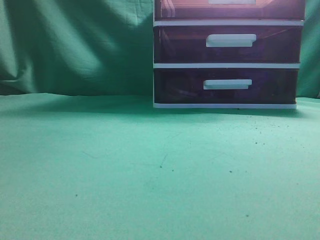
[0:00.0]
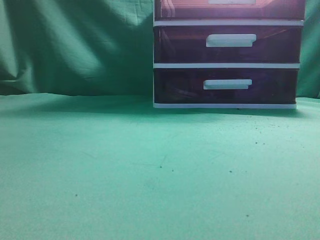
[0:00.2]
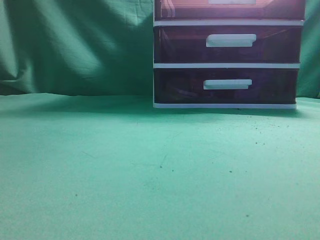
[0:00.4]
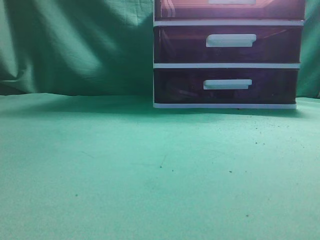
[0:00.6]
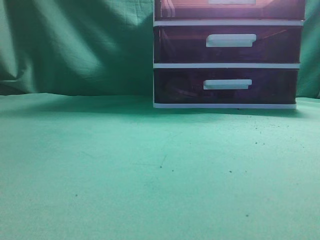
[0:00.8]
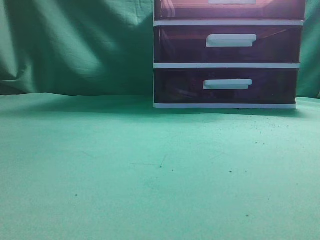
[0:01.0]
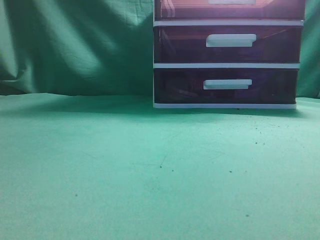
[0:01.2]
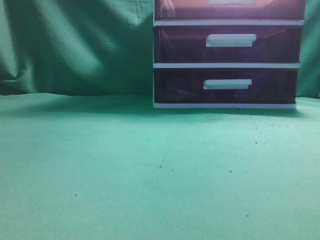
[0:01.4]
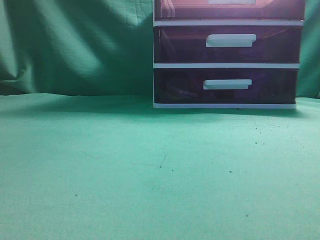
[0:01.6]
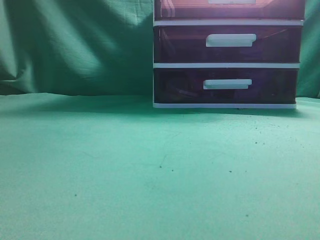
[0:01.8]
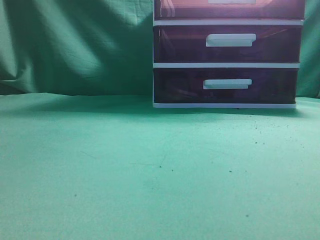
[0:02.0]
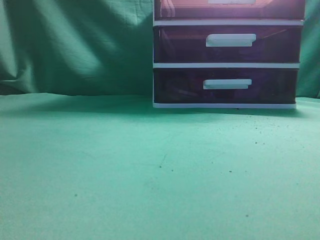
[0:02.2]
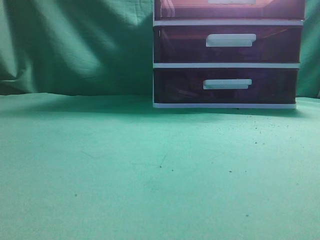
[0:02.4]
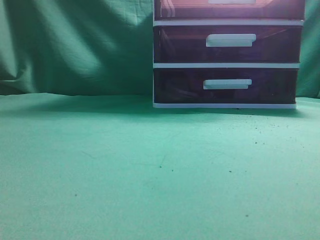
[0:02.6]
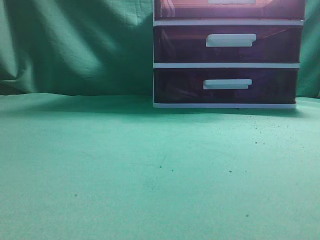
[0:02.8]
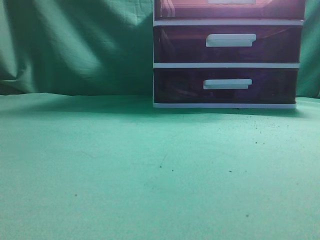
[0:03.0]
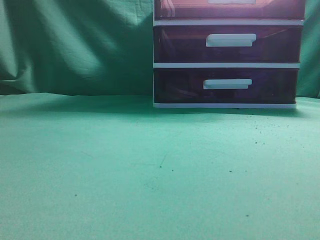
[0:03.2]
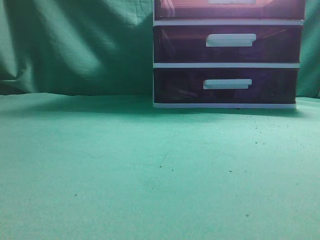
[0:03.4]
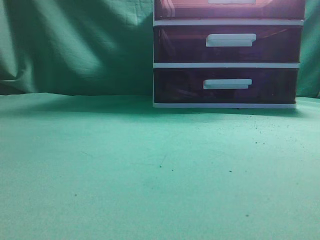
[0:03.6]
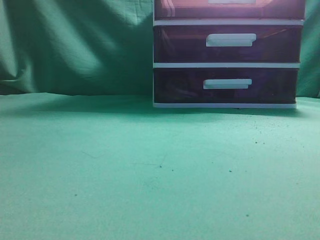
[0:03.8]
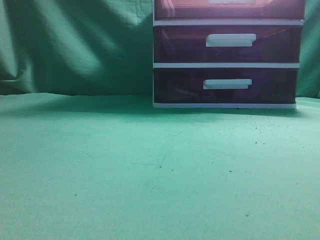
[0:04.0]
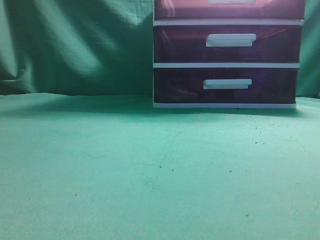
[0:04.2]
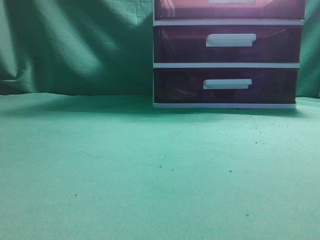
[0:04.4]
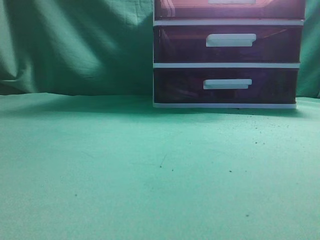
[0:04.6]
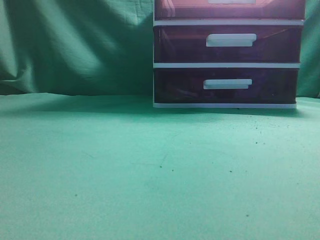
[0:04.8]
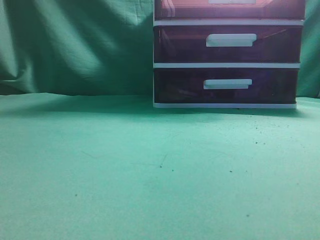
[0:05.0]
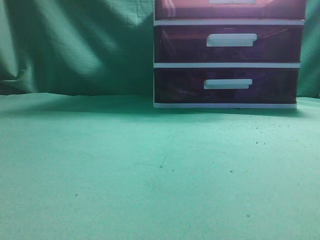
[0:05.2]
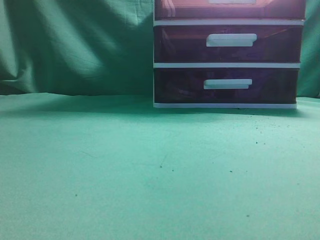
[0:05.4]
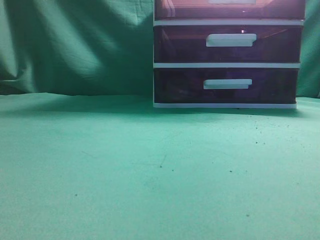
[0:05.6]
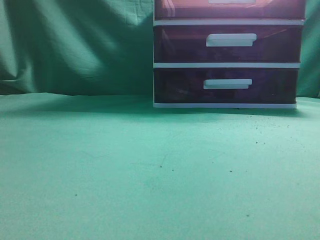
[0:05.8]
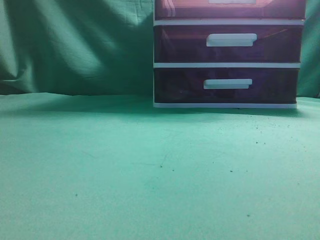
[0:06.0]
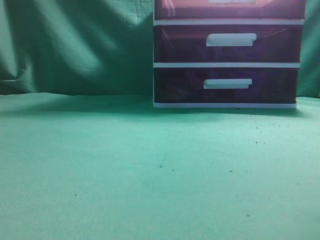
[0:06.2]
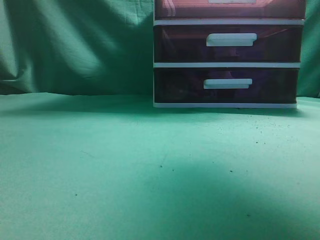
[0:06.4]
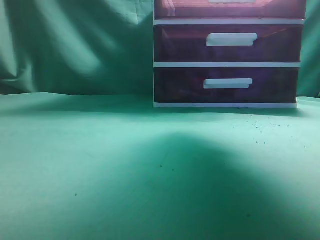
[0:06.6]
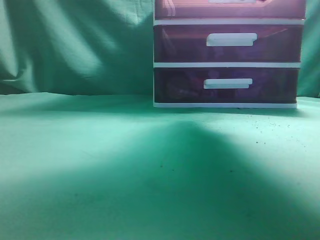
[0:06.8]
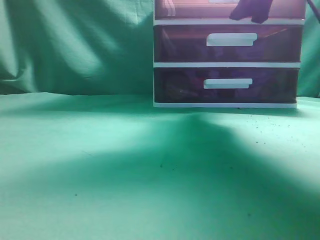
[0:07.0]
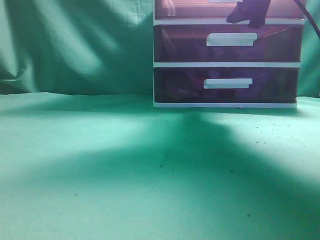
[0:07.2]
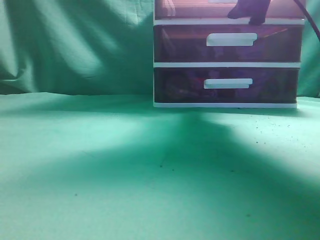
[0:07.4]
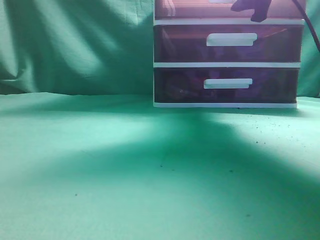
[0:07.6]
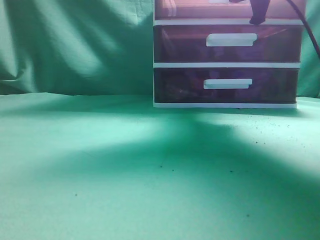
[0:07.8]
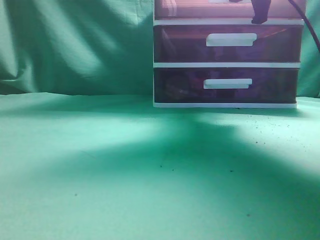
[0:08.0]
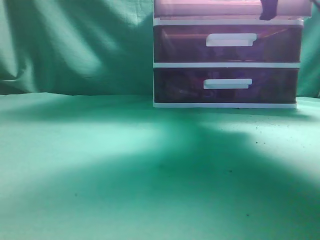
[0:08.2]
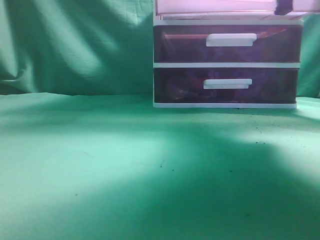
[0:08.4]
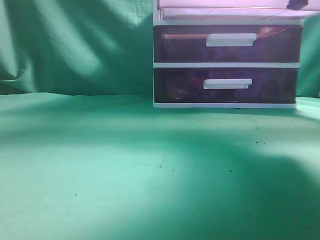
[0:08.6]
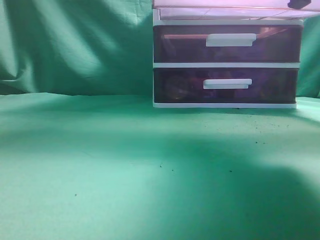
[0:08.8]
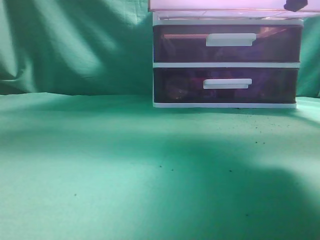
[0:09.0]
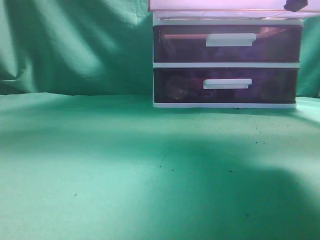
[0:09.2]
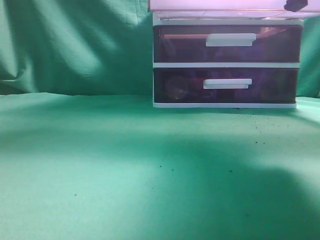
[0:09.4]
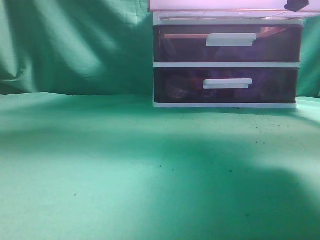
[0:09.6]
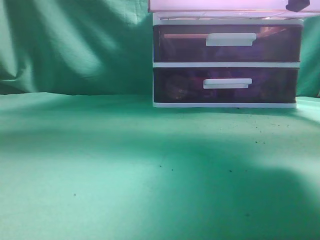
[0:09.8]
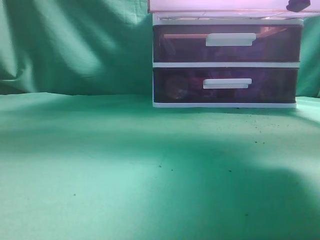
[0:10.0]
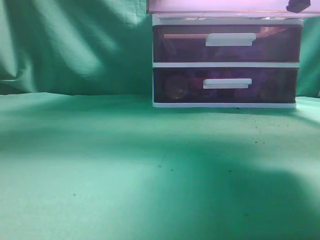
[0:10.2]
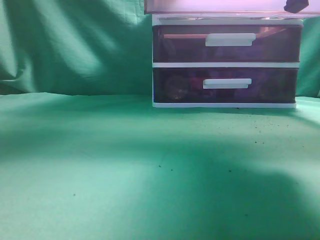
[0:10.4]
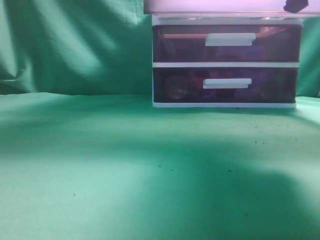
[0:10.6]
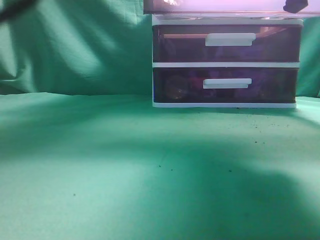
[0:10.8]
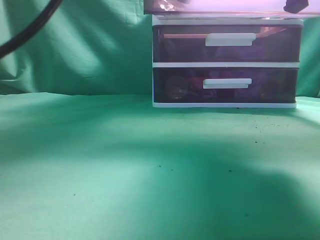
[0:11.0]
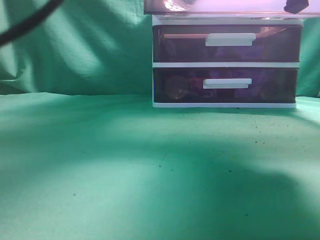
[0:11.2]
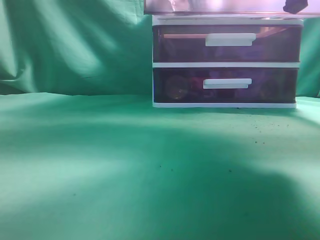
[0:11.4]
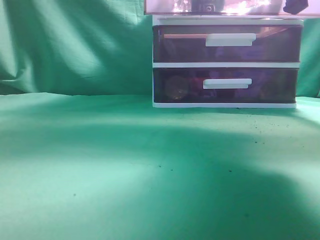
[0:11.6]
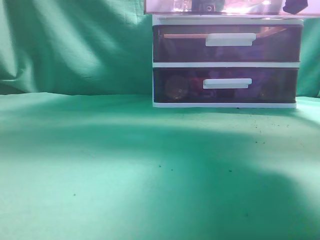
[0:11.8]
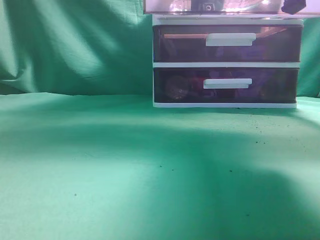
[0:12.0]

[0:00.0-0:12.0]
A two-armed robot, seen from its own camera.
Task of the whole recording: place the water bottle into the drawer.
Step, 0:00.0 to 0:08.6: Open the drawer.
Step, 0:09.0 to 0:11.8: Place the water bottle inside the drawer.
0:06.0 to 0:07.6: The left gripper goes roughly 5 cm forward, while the right gripper shifts roughly 25 cm forward, and opens its fingers.
0:07.6 to 0:09.0: The right gripper is displaced backward by about 10 cm, and closes its fingers.
0:09.0 to 0:10.4: The left gripper is displaced to the right and forward by some 30 cm.
0:10.4 to 0:12.0: The left gripper opens, then closes again.

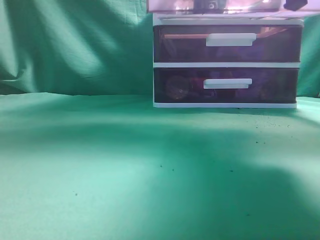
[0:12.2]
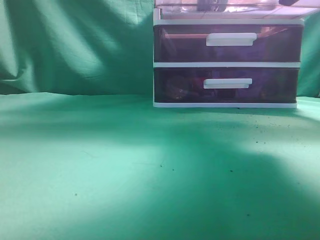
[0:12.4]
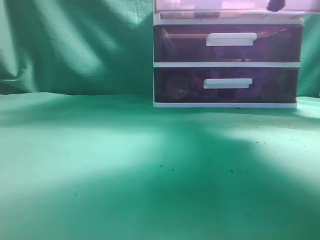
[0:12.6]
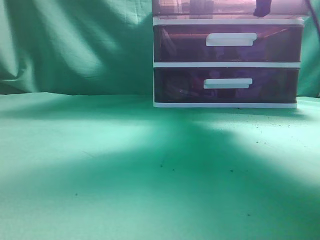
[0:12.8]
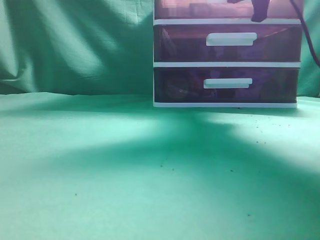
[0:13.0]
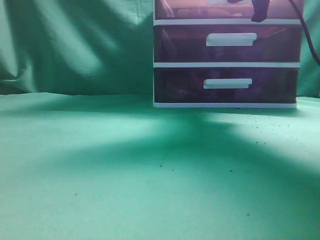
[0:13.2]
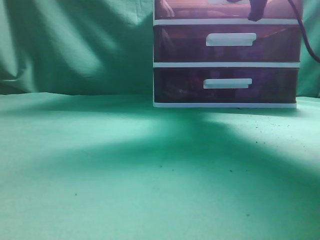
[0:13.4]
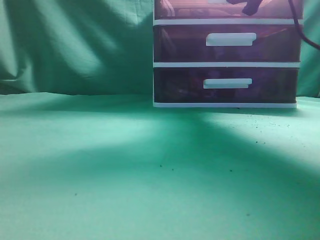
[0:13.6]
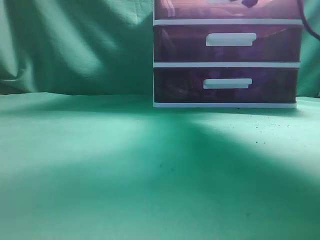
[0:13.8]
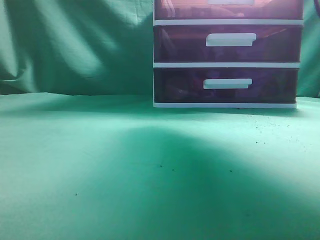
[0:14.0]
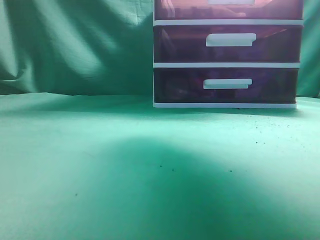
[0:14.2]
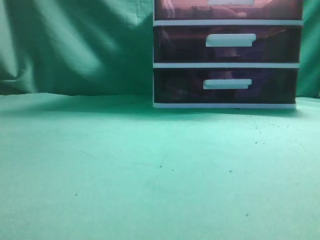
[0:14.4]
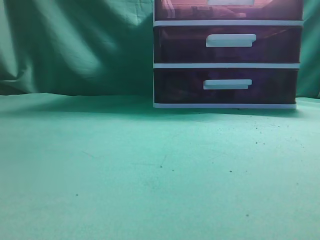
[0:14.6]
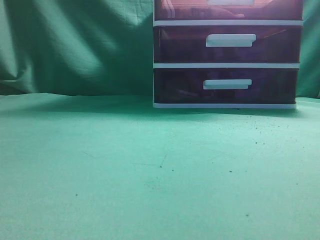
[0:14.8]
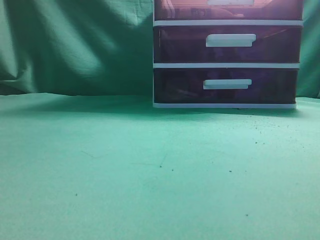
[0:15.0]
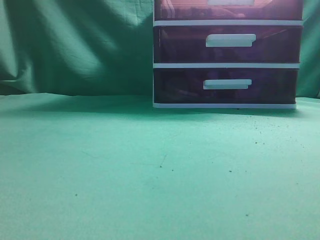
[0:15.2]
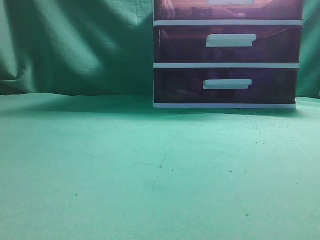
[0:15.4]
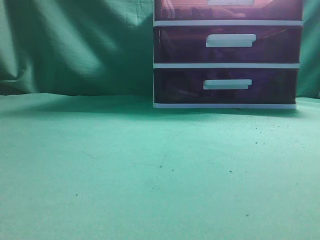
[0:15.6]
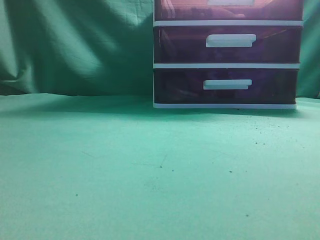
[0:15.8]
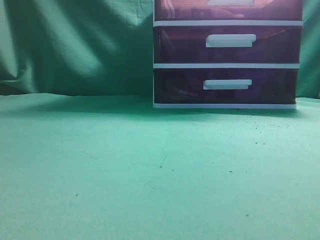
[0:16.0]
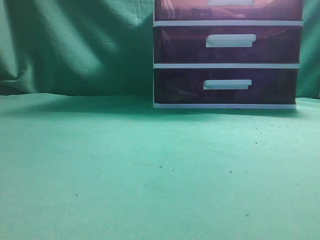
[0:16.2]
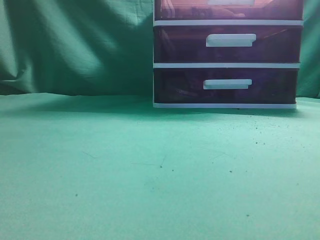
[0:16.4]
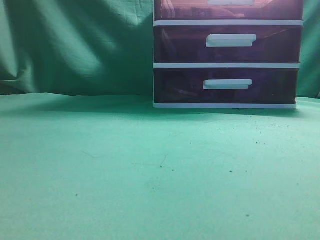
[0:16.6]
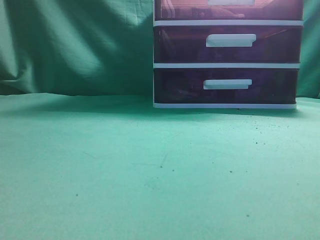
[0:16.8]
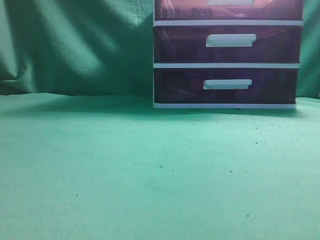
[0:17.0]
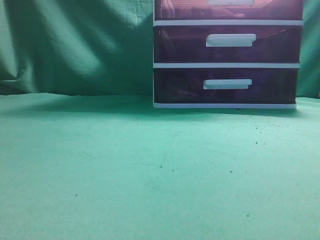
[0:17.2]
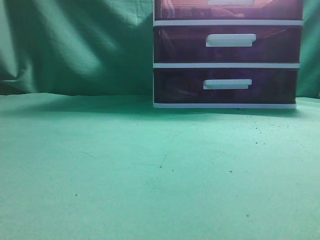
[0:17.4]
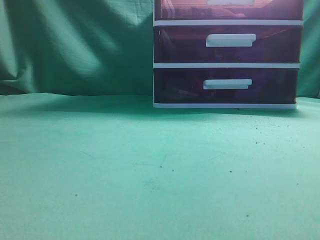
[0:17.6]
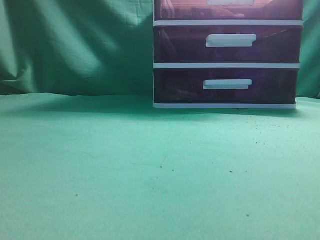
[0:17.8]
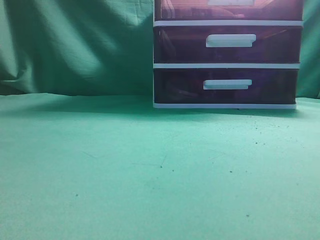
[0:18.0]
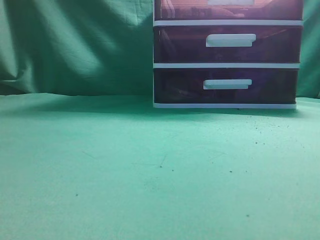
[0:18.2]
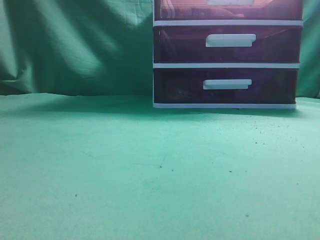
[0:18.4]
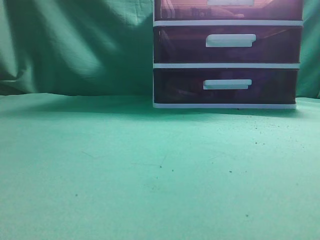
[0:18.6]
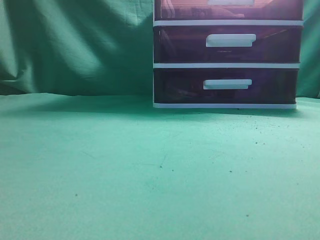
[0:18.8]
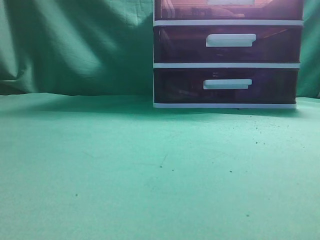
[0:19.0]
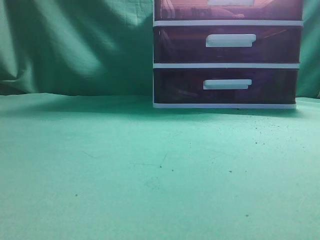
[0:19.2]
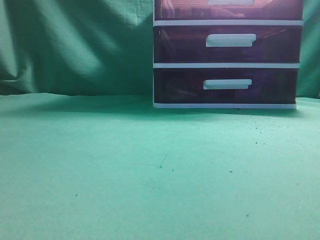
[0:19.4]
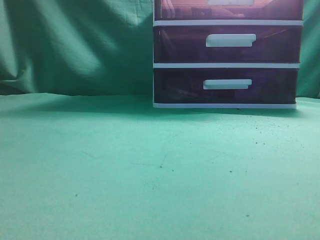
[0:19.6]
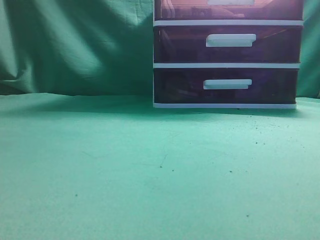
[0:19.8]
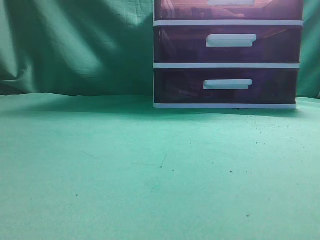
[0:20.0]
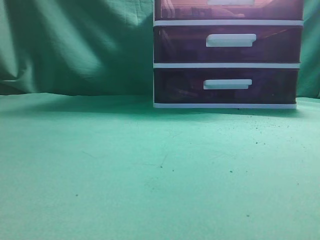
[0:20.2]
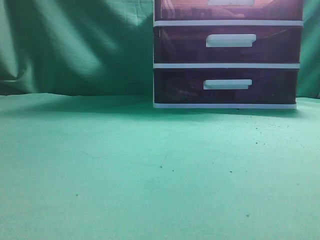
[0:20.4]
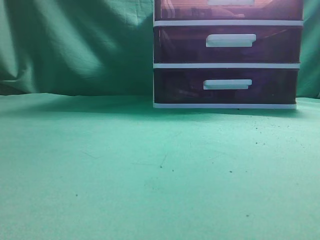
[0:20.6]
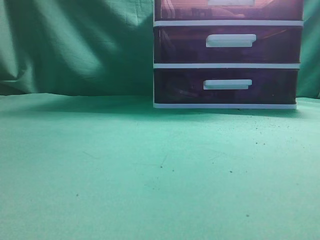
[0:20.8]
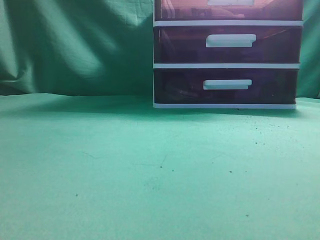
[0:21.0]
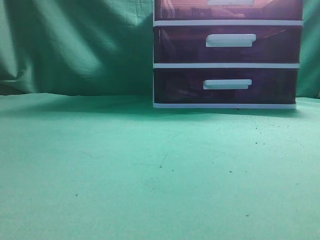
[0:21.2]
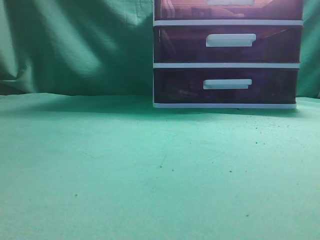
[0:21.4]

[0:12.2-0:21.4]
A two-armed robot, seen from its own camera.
Task of the whole recording: place the water bottle into the drawer.
Step, 0:12.2 to 0:14.2: Close the drawer.
0:12.2 to 0:13.8: The right gripper heads forward, covering about 15 cm, and opens its fingers; the left gripper travels backward by roughly 5 cm.
0:13.8 to 0:15.2: The right gripper is displaced backward and upward by approximately 35 cm, and closes, while the left gripper is displaced backward and to the left by some 15 cm.

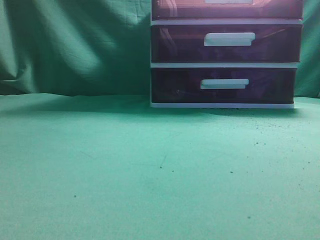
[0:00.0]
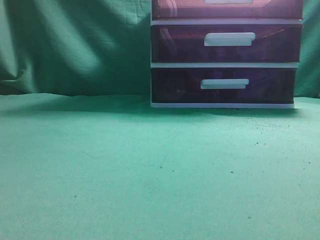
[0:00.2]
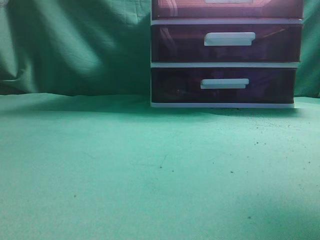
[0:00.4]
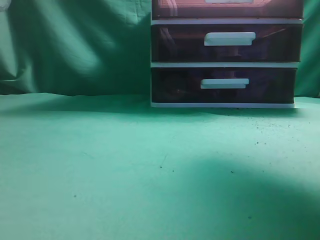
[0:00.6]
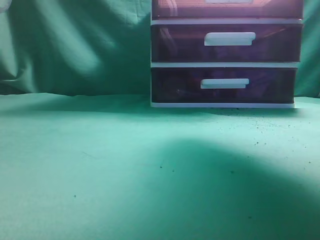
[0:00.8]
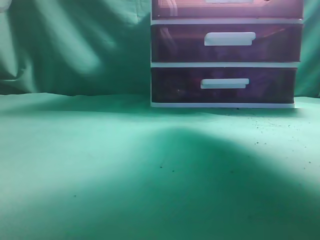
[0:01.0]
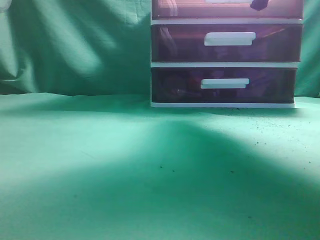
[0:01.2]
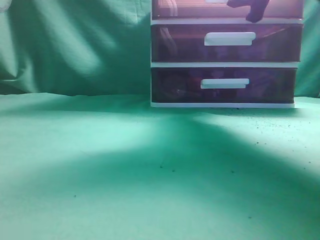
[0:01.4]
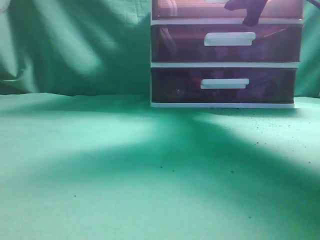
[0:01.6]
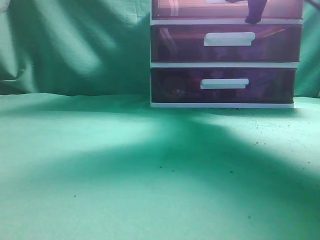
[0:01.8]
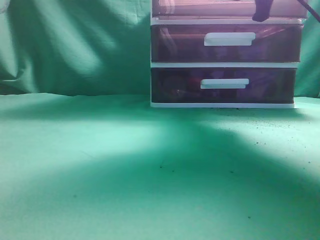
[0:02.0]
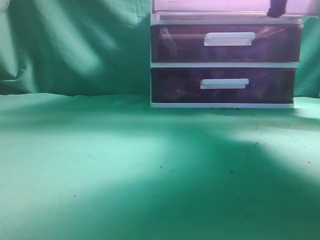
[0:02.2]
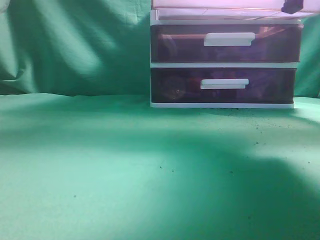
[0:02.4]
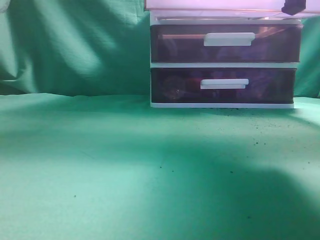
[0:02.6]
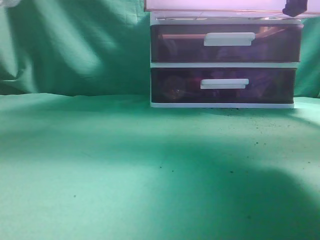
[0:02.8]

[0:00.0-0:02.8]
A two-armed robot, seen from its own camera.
Task of the whole recording: place the water bottle into the drawer.
Step, 0:00.0 to 0:02.8: Open the drawer.
0:00.0 to 0:01.4: The right gripper goes roughly 25 cm forward, and opens up.
0:01.4 to 0:02.8: The right gripper is displaced backward by about 15 cm, and closes up.
